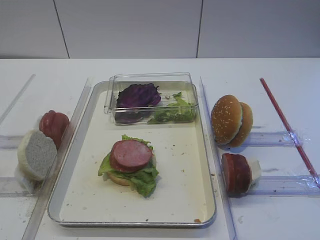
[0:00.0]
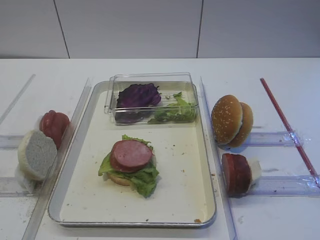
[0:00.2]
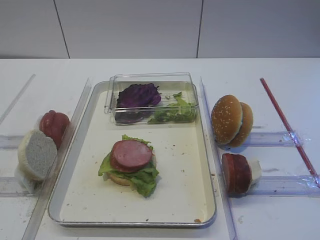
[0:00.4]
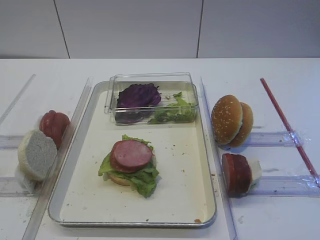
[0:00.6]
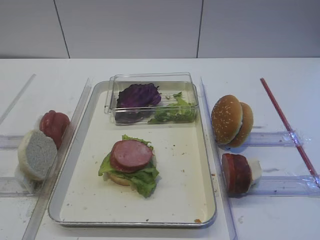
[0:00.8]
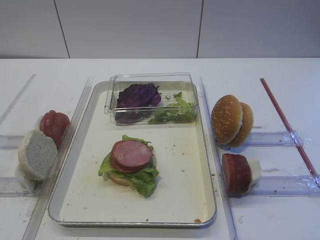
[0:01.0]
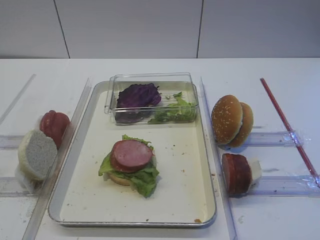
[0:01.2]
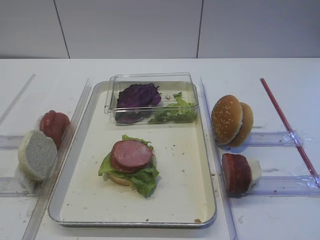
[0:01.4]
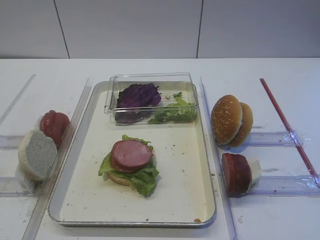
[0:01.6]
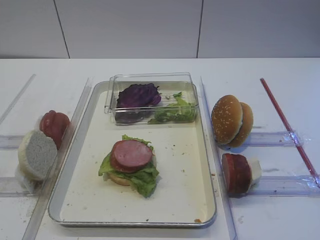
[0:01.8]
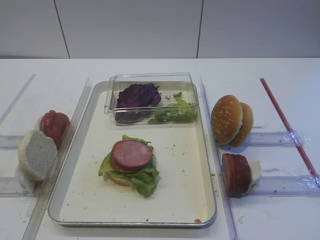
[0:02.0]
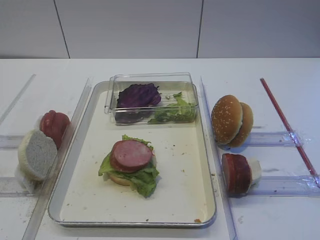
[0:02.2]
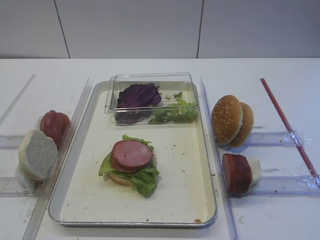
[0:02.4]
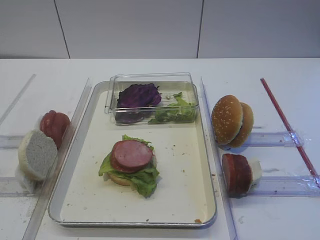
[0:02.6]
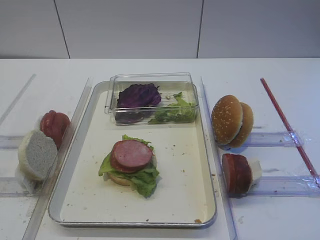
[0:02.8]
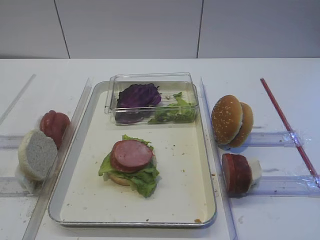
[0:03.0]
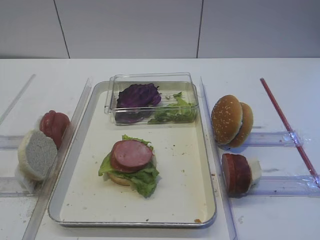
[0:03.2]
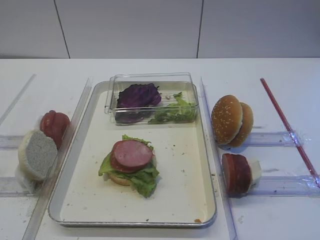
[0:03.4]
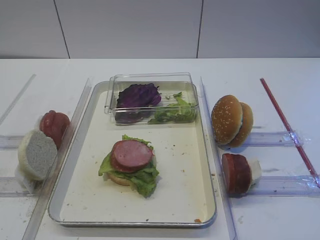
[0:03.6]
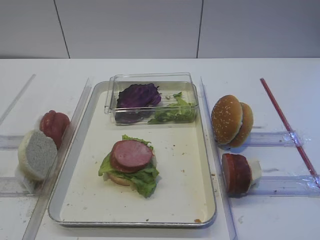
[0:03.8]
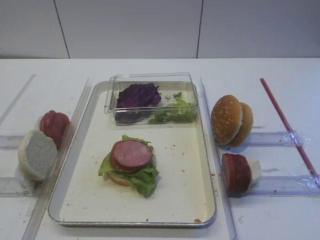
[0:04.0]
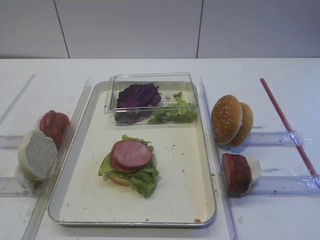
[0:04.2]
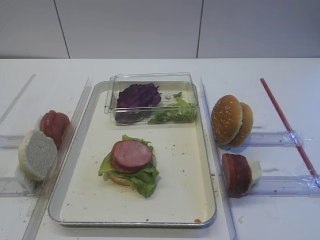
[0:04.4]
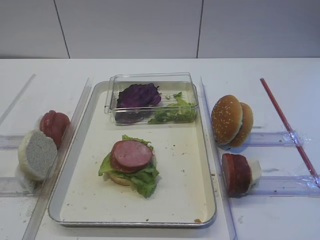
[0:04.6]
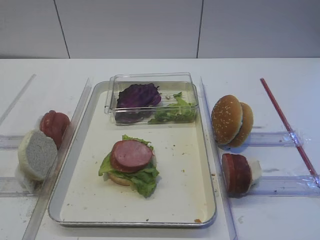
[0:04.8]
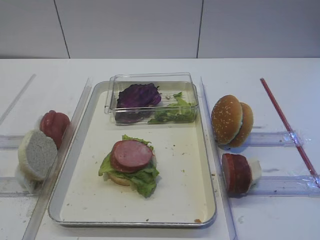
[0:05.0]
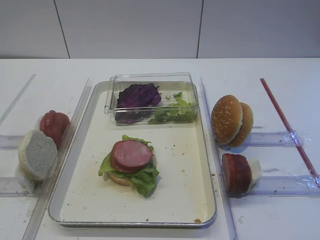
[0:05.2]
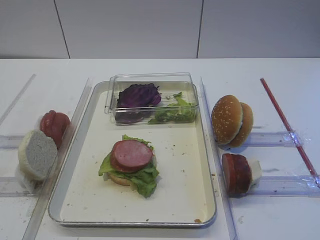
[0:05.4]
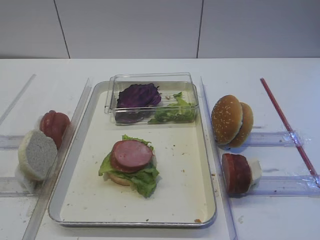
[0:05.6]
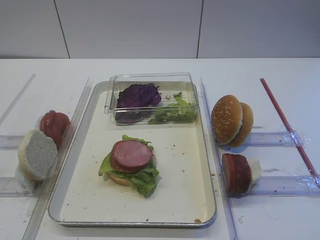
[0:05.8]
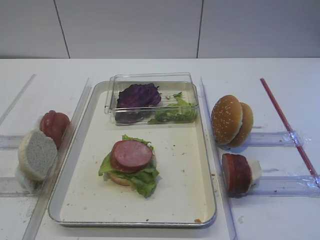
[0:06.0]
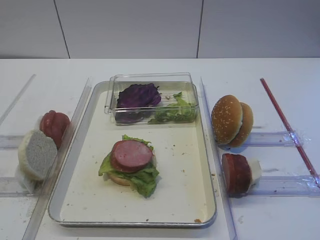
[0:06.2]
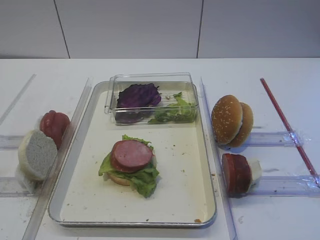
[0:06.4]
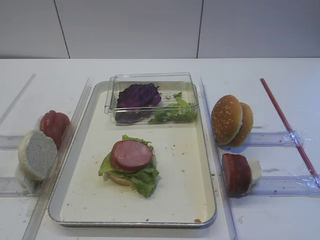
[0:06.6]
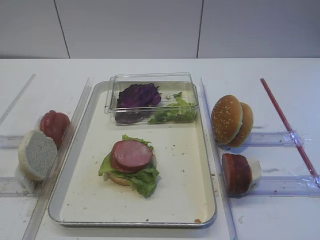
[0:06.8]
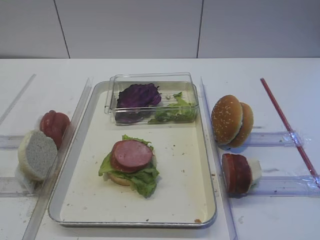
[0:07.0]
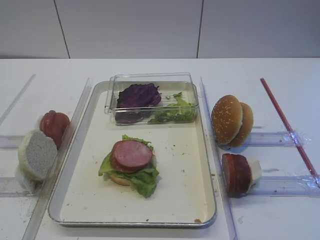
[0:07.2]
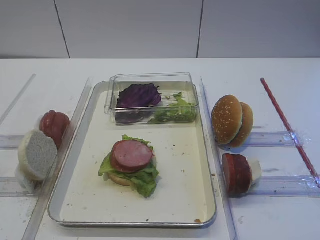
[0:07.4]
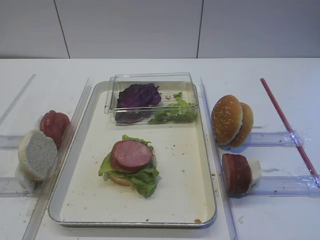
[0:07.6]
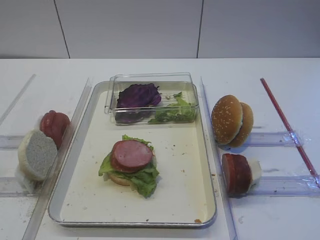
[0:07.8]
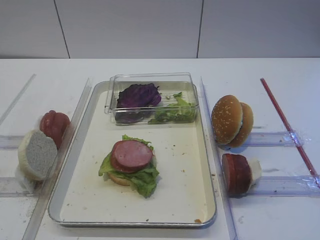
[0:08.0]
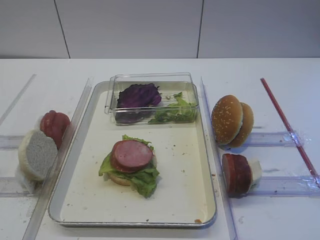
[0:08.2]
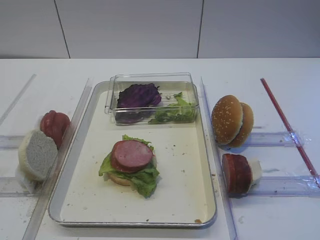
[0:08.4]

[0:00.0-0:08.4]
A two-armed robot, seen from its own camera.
0:02.8 to 0:08.4: Both grippers stay put.

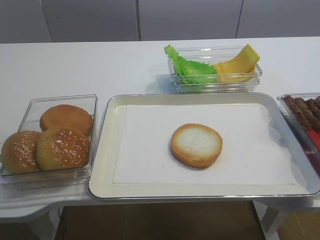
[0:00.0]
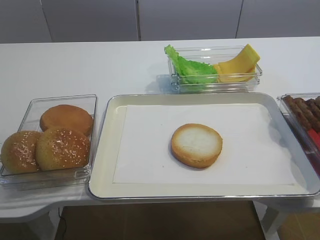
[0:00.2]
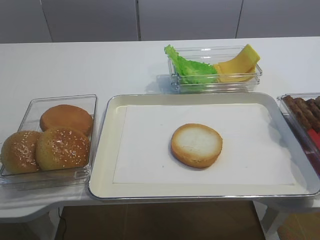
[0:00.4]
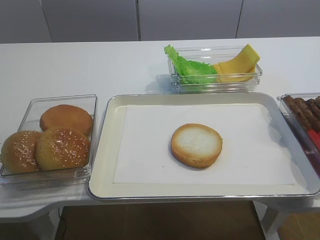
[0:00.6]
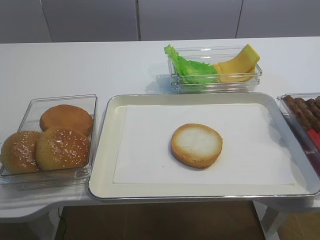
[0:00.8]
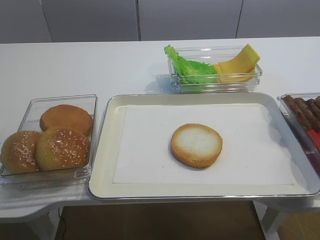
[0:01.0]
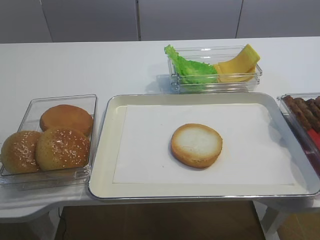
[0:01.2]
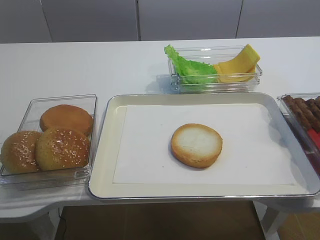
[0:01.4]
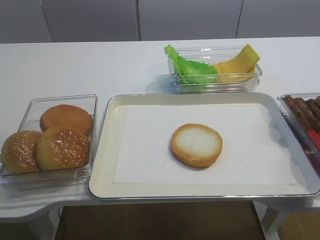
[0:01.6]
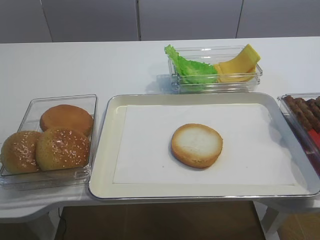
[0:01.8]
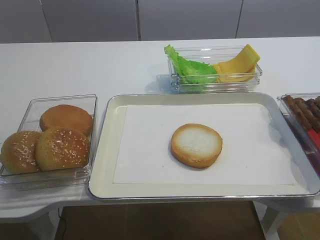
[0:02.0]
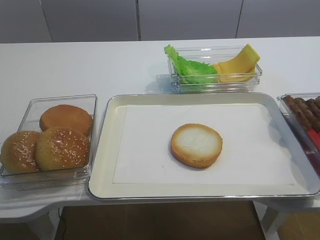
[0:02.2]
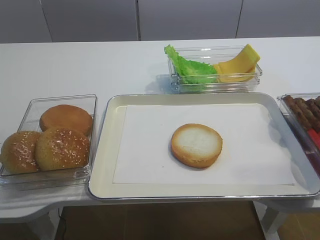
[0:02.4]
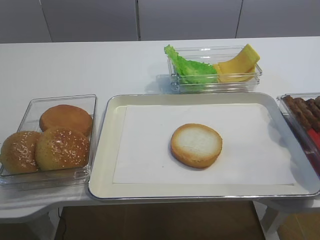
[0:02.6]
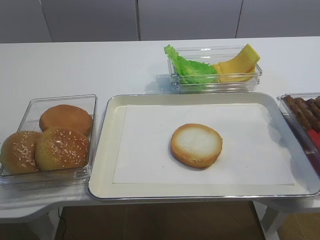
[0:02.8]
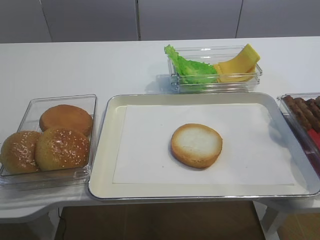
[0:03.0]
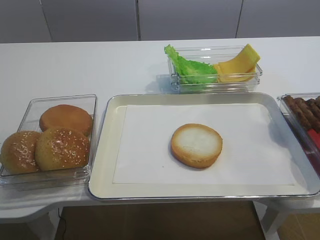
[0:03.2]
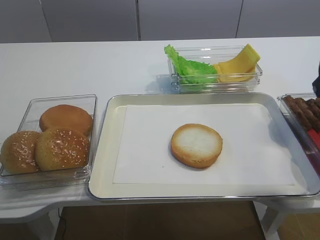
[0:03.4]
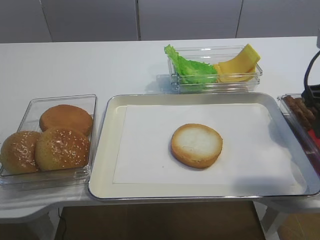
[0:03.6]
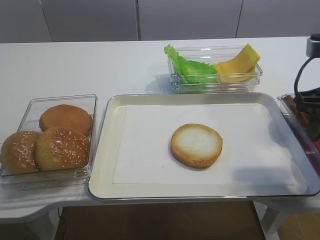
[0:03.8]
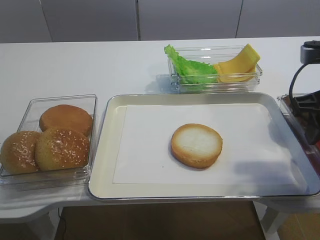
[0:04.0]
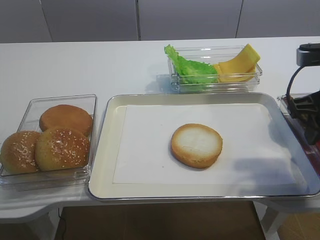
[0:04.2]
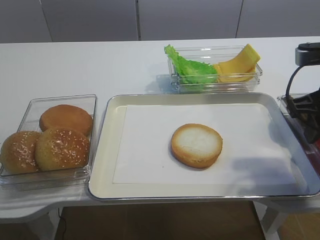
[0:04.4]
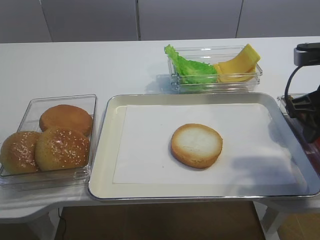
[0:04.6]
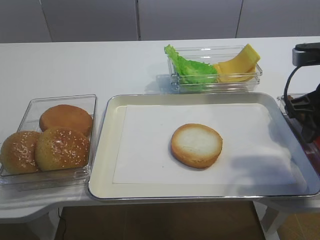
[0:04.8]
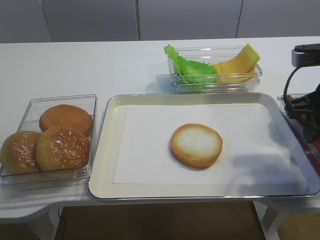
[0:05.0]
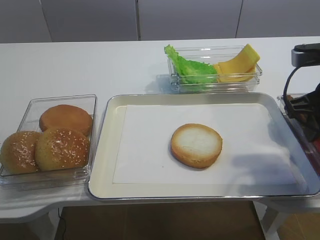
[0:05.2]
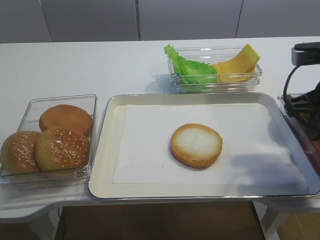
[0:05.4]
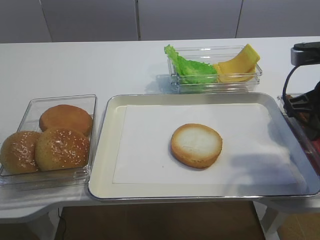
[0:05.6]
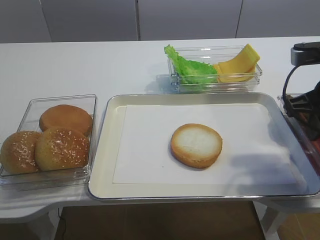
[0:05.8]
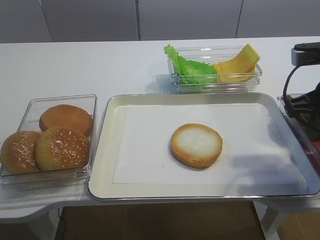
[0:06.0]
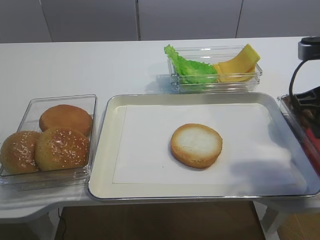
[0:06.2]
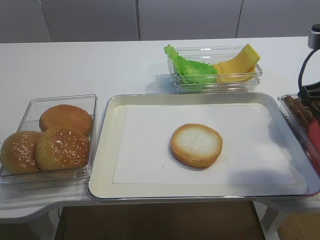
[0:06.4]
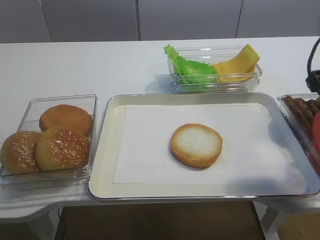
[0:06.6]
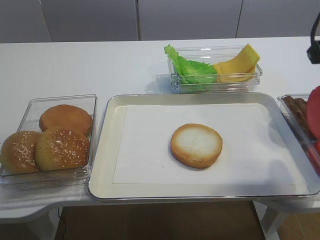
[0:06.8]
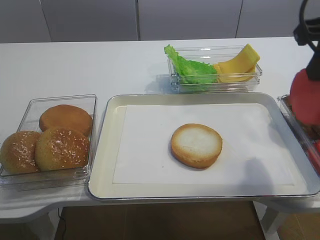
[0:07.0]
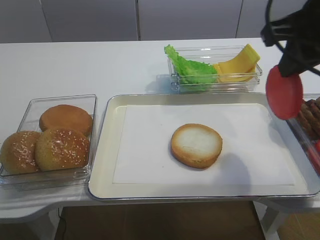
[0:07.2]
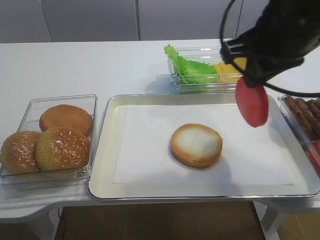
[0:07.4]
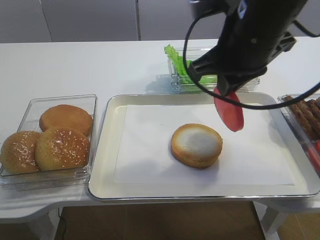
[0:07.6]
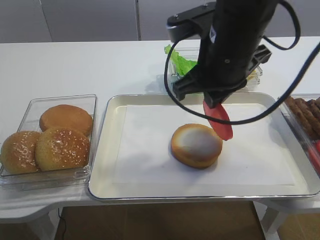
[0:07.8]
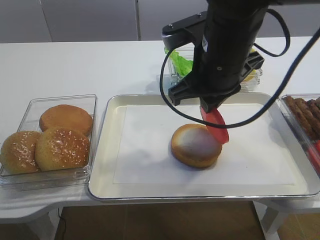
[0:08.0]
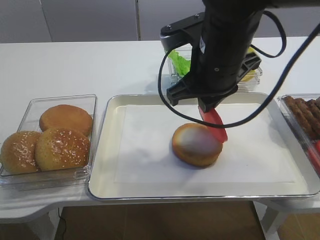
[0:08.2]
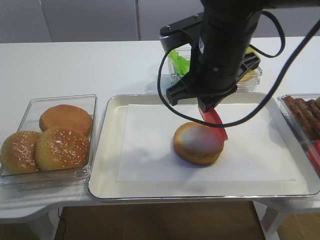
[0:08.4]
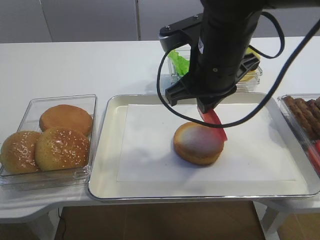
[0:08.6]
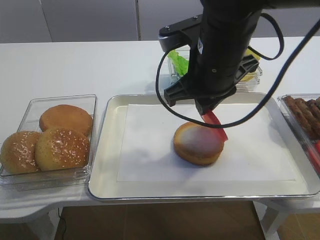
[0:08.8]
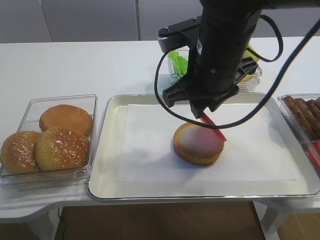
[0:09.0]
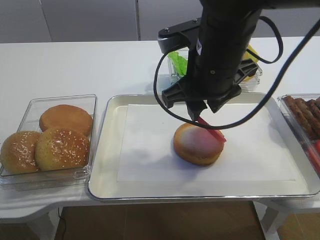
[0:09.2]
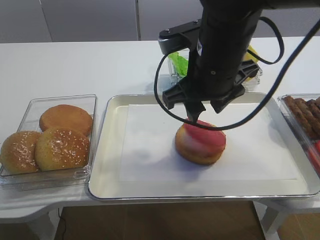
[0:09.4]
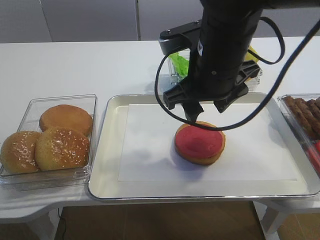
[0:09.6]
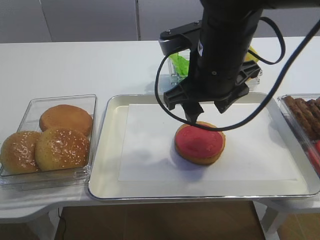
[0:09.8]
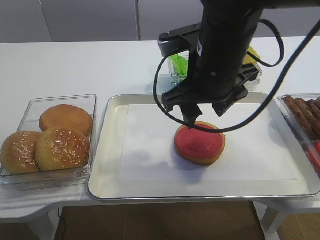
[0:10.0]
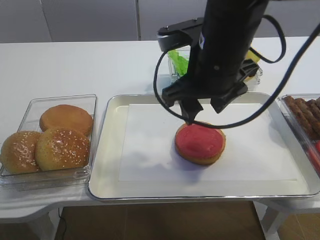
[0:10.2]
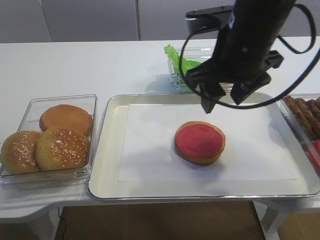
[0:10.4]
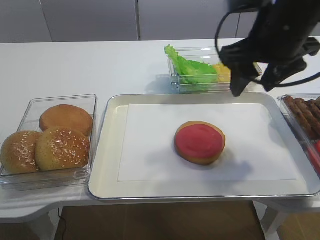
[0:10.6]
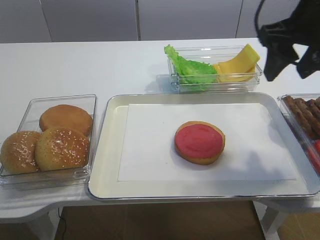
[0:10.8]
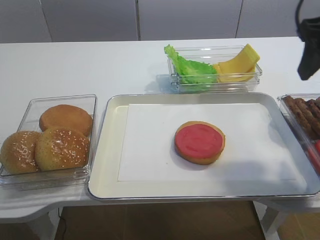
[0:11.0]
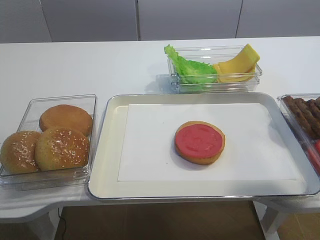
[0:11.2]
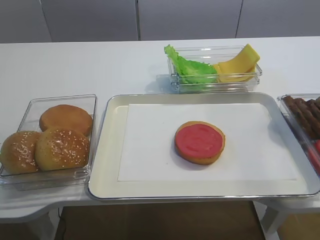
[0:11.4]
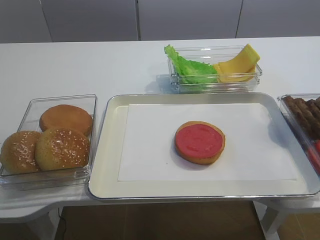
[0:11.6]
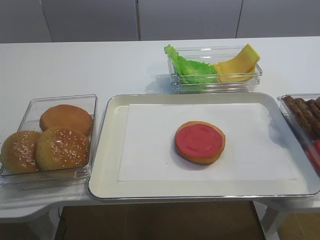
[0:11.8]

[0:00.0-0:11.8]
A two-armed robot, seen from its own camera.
Step, 0:00.0 to 0:06.4: Pick up the tomato slice with the right gripper.
Step, 0:06.6 to 0:10.2: Place the tomato slice on the bread slice with the right gripper.
0:03.0 to 0:04.4: The right gripper travels forward and downward by about 15 cm.
0:04.4 to 0:06.0: The right gripper closes up.
0:06.0 to 0:07.4: The right gripper is displaced to the left and upward by approximately 15 cm.
0:07.4 to 0:08.8: The right gripper shifts some 10 cm to the left and downward.
0:08.8 to 0:10.4: The right gripper opens.
0:10.4 to 0:11.8: The right gripper moves to the right, backward and upward, roughly 25 cm.

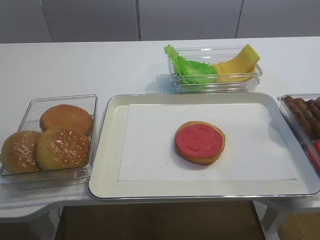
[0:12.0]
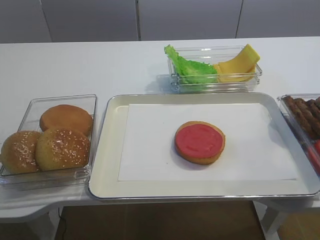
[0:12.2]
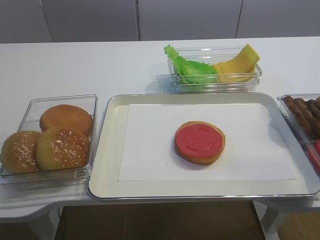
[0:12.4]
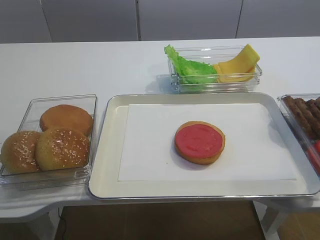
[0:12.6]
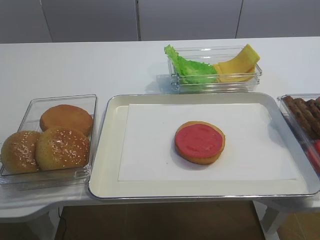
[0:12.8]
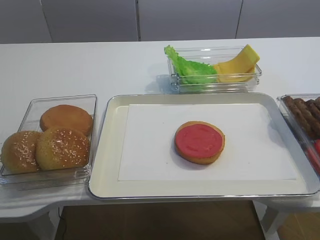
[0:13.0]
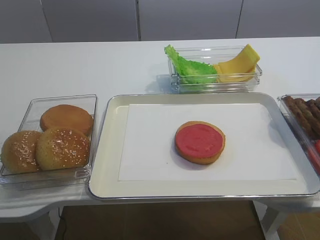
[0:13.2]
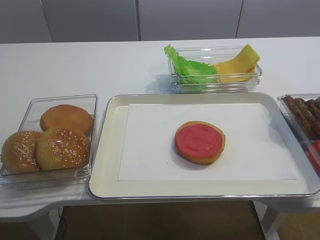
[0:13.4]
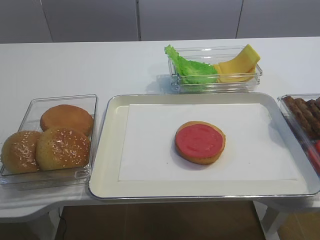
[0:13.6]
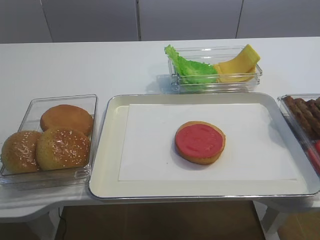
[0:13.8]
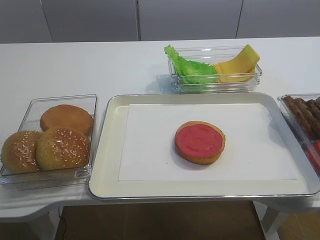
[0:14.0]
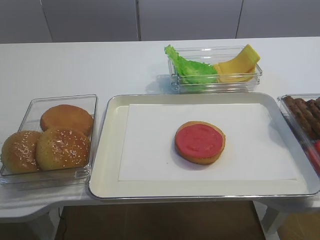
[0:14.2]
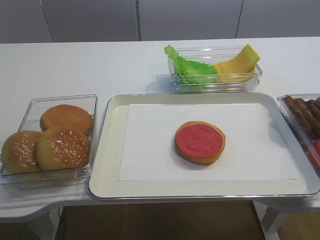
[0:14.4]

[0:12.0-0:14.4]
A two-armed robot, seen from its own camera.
0:13.2 to 0:14.4: The two grippers keep their place.
